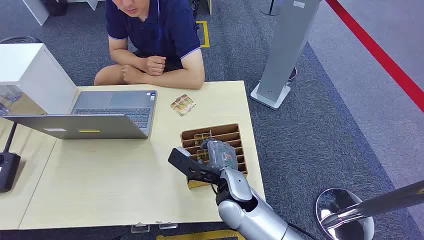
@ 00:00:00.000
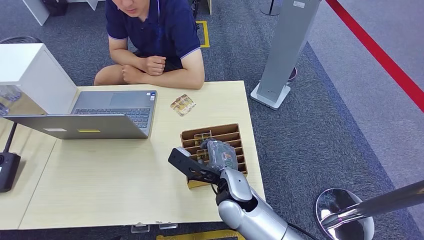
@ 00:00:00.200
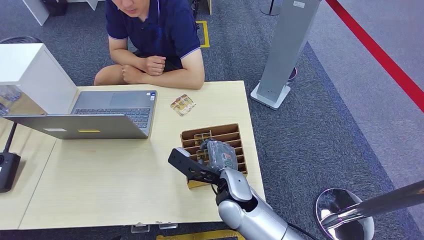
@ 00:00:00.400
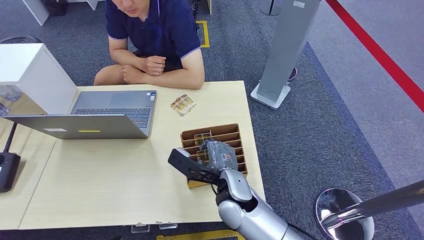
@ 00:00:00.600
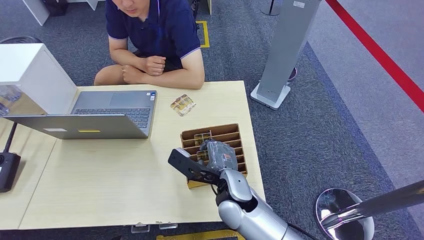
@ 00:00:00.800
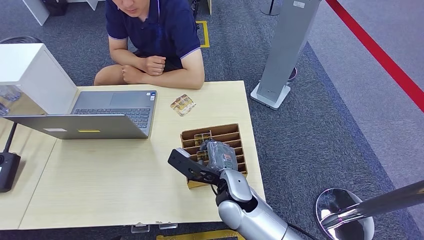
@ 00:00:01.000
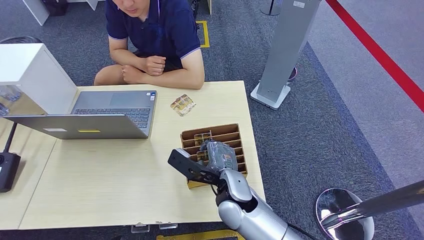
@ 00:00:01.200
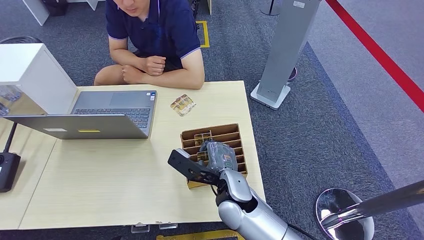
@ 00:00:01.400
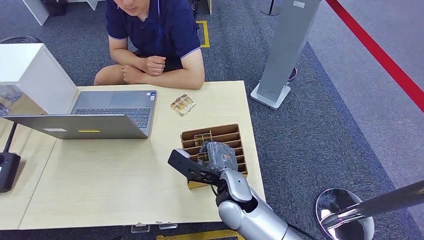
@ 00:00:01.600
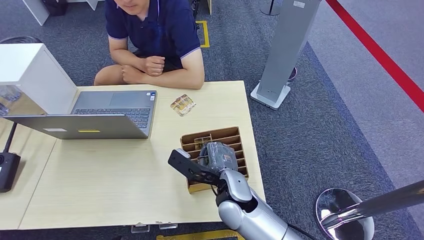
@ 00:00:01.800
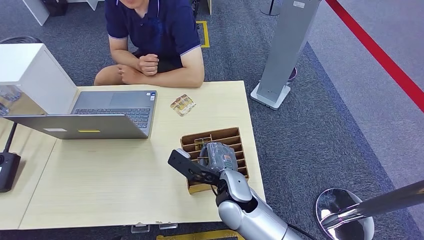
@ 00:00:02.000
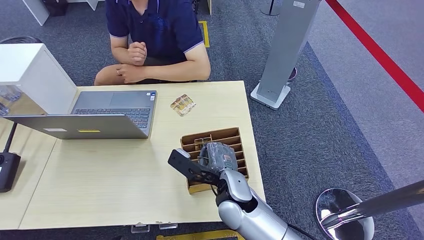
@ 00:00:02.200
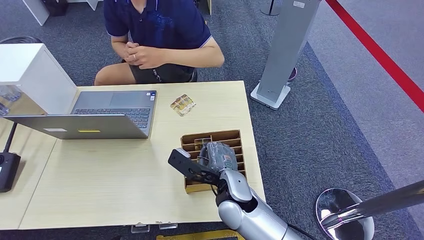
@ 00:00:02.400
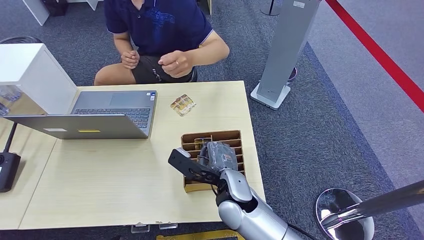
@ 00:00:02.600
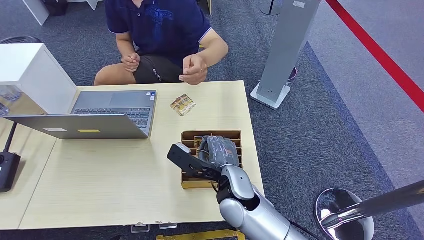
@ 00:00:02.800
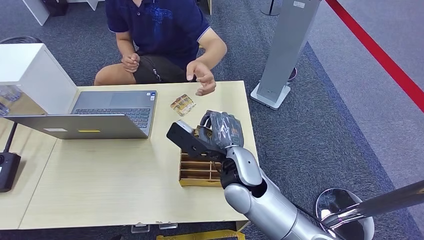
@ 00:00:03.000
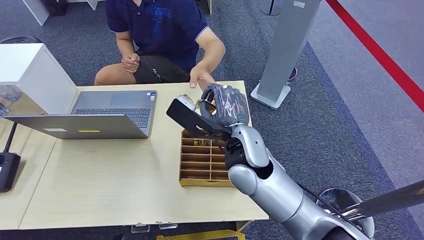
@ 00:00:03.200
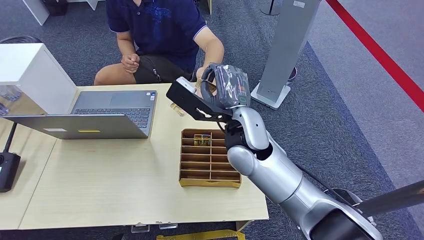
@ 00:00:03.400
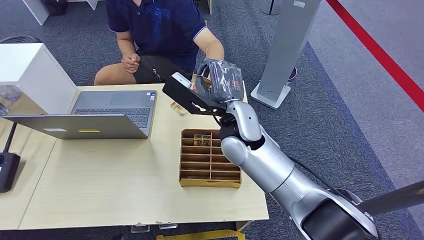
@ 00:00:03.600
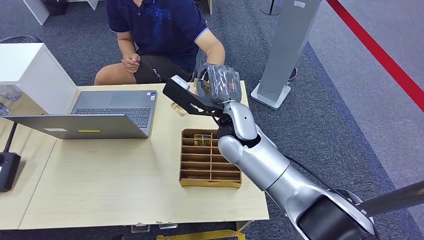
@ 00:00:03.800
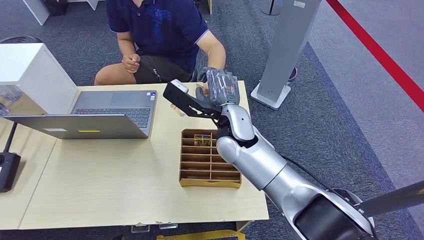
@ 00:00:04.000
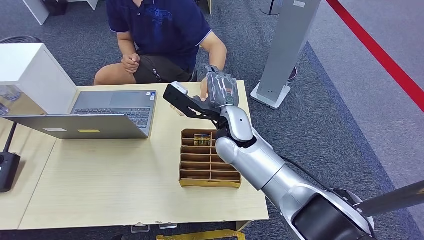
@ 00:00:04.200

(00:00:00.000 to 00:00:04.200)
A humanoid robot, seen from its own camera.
Task of the whole recording: Pick up the card and hand it over to the target person.
Step, 00:00:00.000 - 00:00:02.400: Pick up the key card from the card box.
Step, 00:00:03.000 - 00:00:04.200: Hand the key card to the target.
00:00:01.400 - 00:00:02.800: The right hand goes about 10 cm upward.
00:00:02.800 - 00:00:04.200: The right hand is displaced forward by about 10 cm.

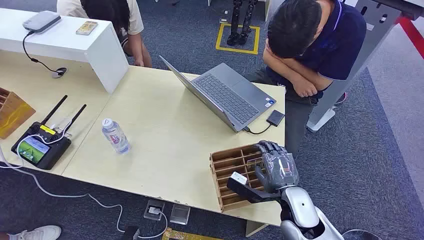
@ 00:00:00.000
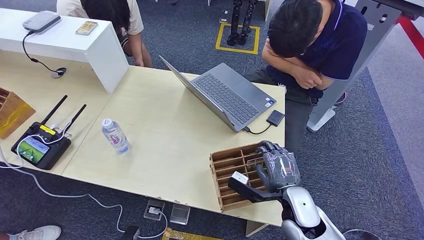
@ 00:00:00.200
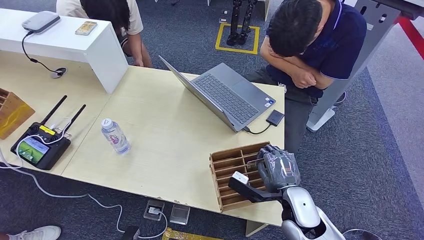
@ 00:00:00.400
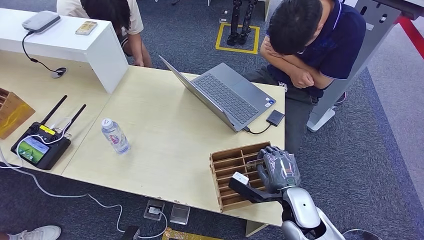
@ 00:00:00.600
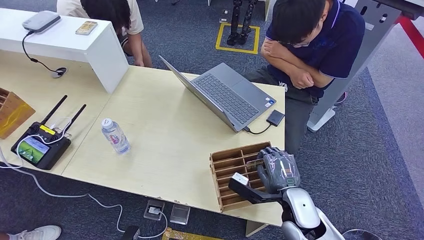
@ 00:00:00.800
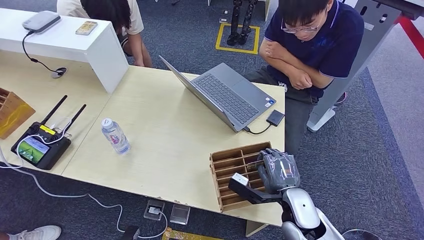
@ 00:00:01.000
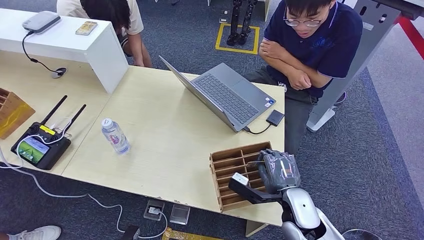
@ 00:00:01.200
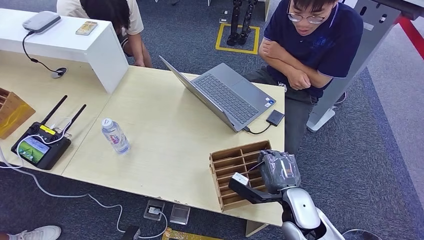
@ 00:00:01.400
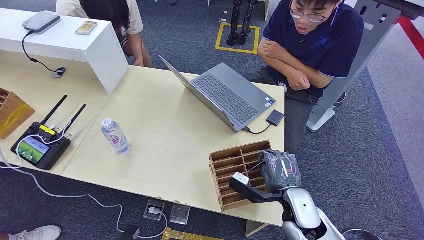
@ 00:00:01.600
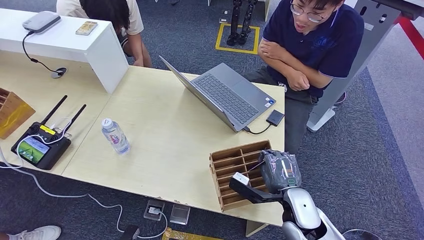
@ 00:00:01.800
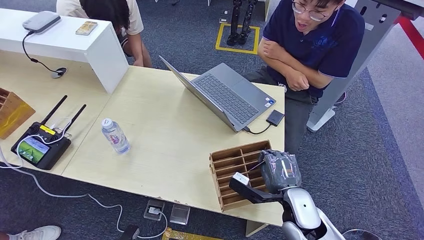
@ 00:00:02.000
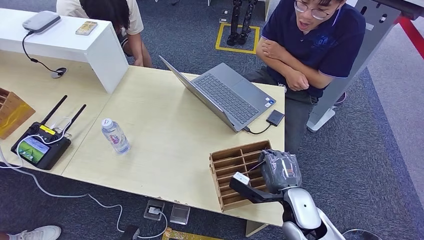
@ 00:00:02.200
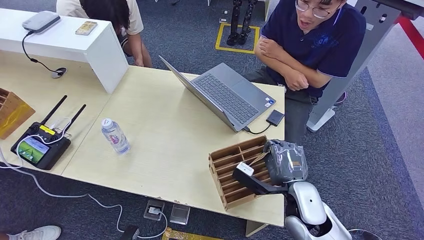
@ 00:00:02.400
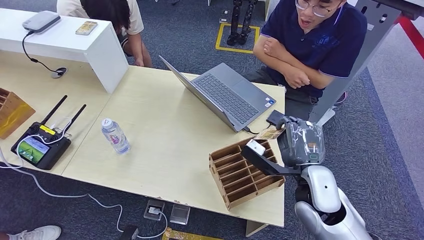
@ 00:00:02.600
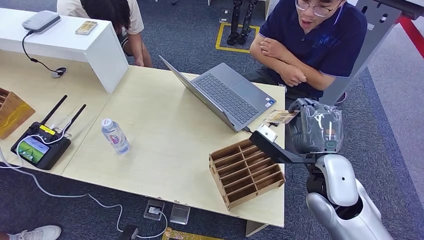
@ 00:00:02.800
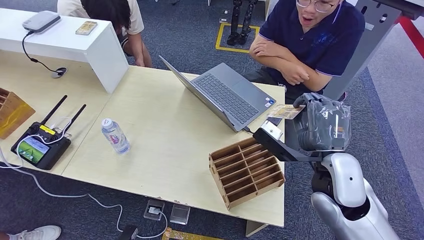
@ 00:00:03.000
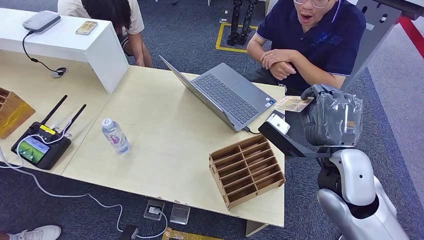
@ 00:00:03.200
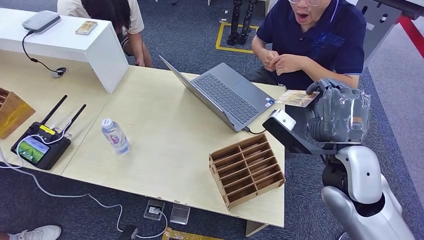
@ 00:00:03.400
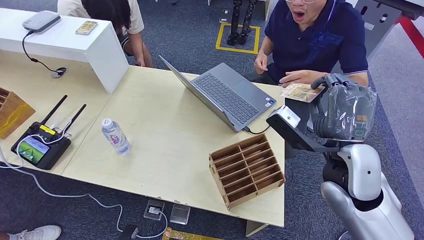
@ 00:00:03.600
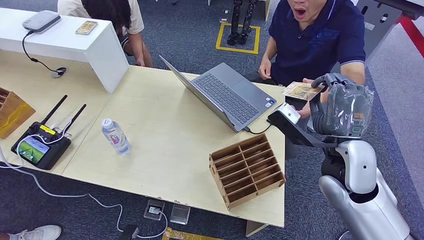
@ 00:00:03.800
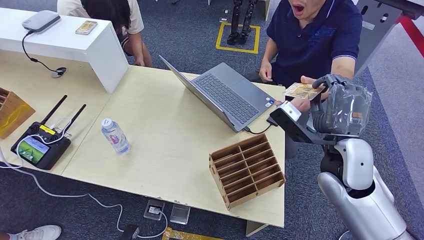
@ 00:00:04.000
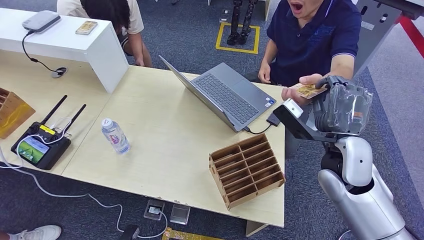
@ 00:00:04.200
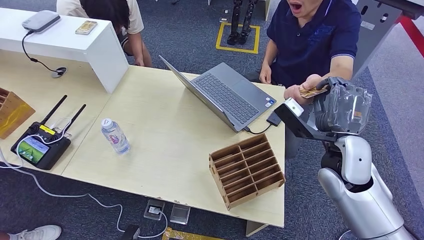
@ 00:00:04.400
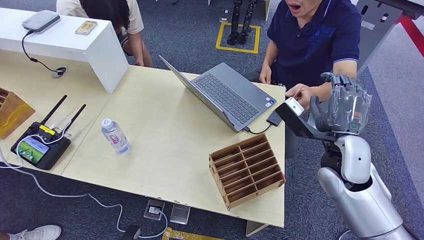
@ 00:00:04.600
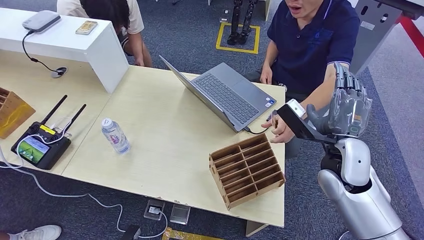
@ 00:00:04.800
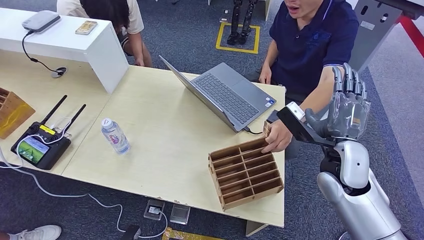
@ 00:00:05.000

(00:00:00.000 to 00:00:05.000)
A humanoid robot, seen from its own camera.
Task of the whole recording: Pick up the card and hand it over to the target person.
Step, 00:00:00.000 - 00:00:03.200: Pick up the key card from the card box.
Step, 00:00:03.800 - 00:00:05.000: Hand the key card to the target.
00:00:01.600 - 00:00:03.400: The right hand moves upward, roughly 15 cm.
00:00:03.400 - 00:00:05.000: The right hand moves about 5 cm.
